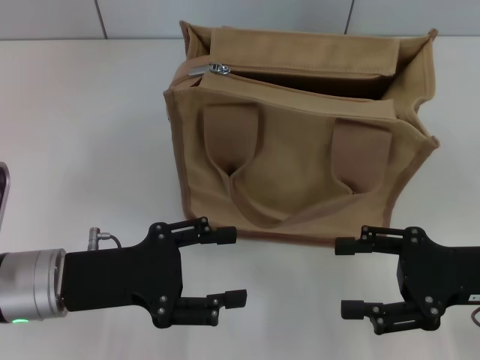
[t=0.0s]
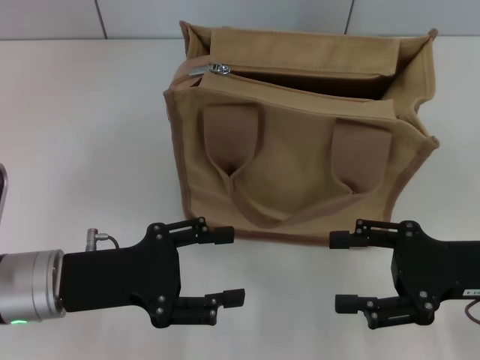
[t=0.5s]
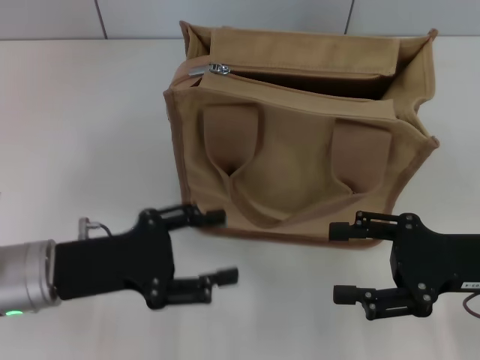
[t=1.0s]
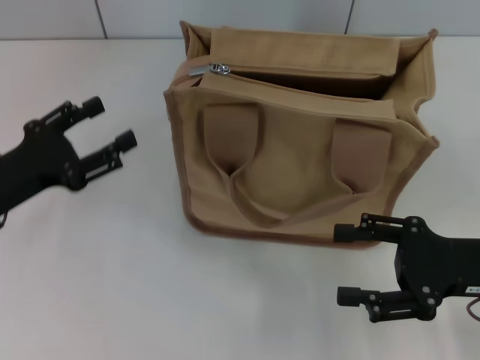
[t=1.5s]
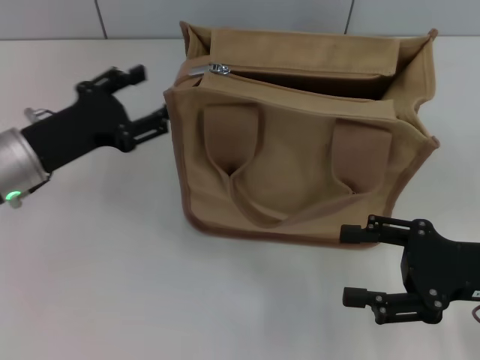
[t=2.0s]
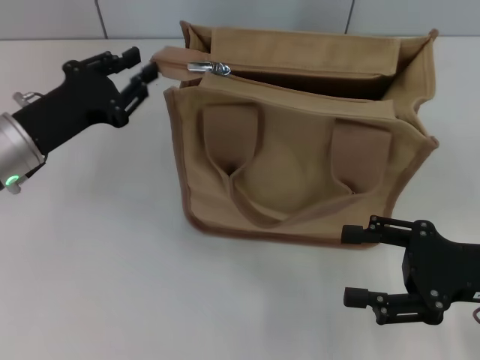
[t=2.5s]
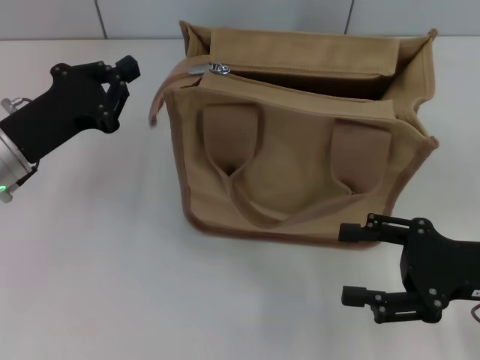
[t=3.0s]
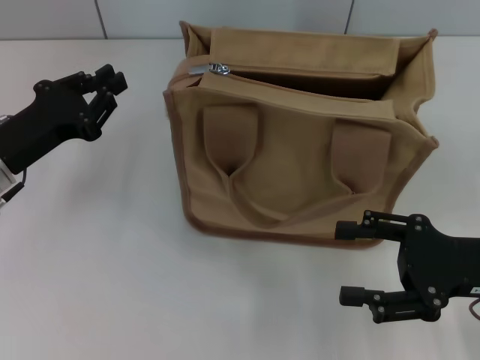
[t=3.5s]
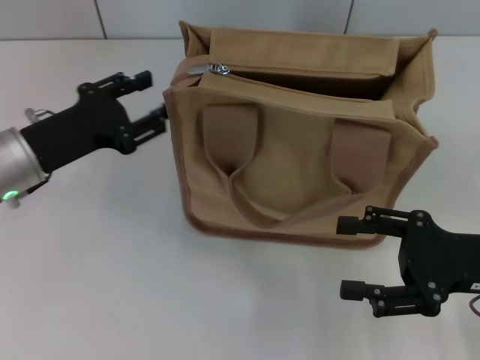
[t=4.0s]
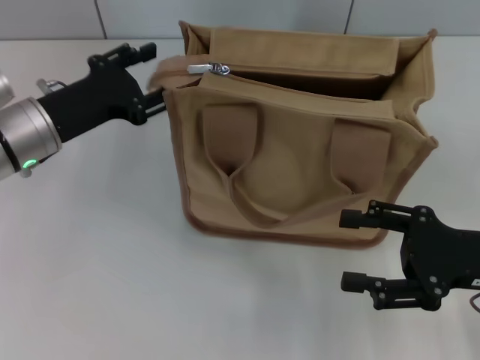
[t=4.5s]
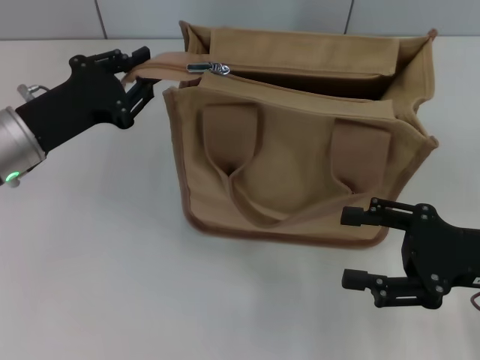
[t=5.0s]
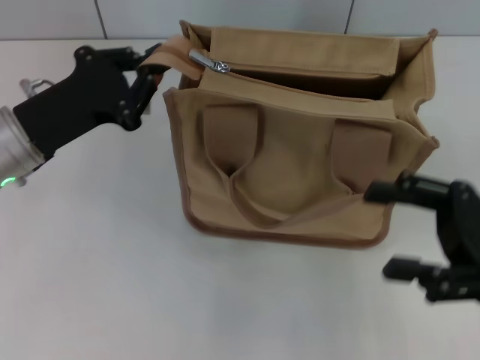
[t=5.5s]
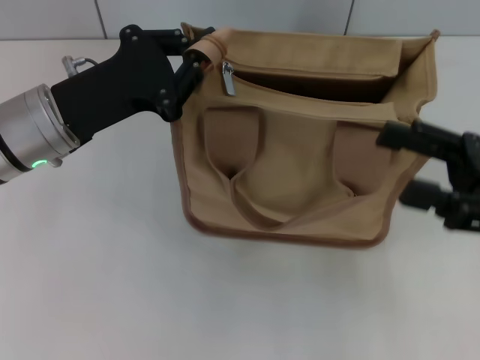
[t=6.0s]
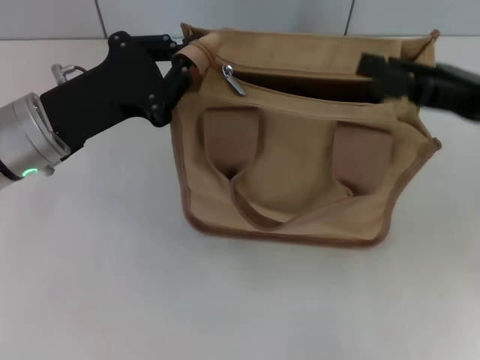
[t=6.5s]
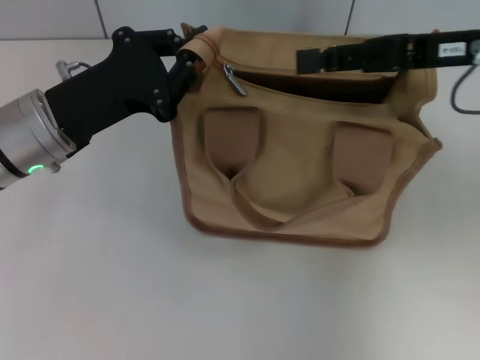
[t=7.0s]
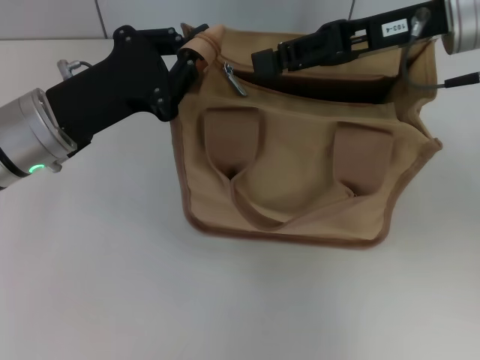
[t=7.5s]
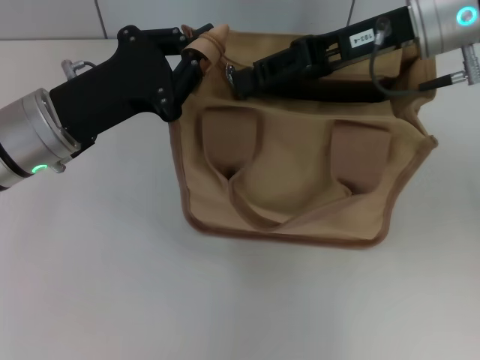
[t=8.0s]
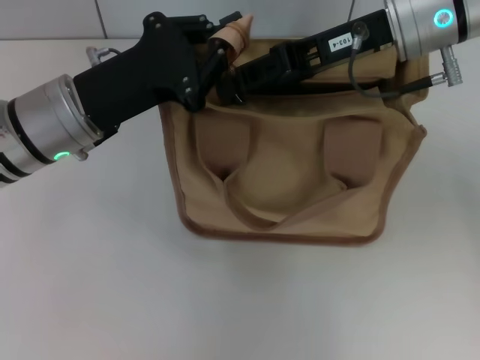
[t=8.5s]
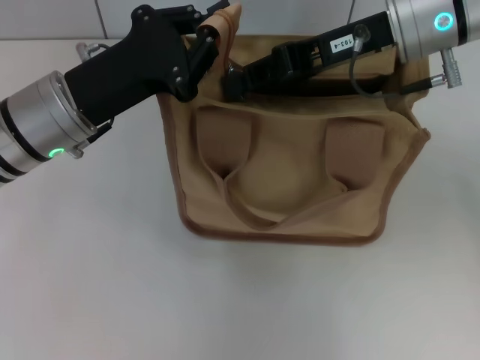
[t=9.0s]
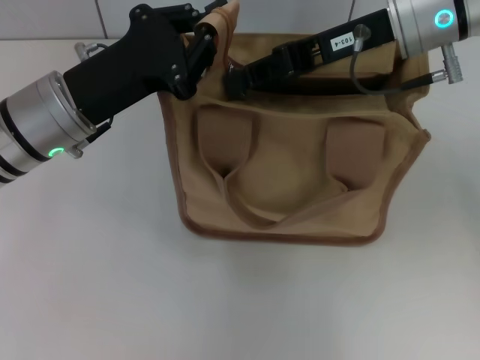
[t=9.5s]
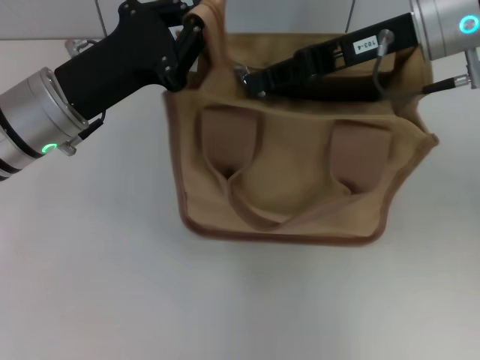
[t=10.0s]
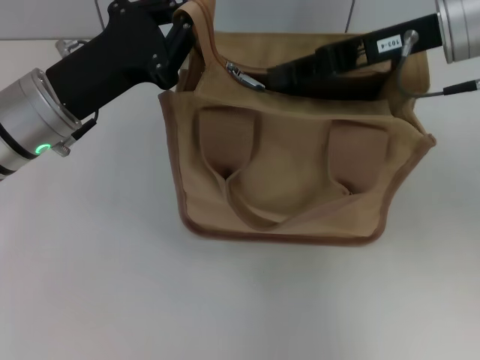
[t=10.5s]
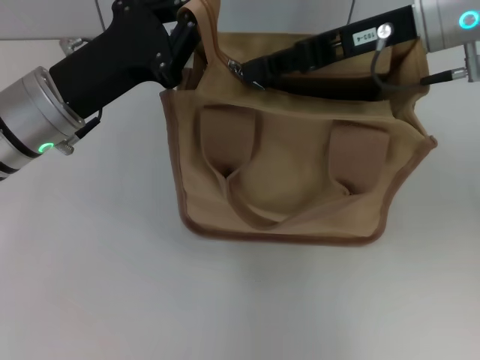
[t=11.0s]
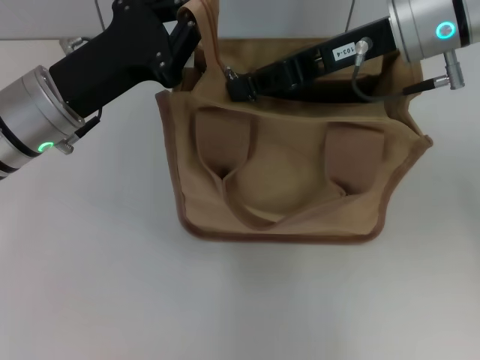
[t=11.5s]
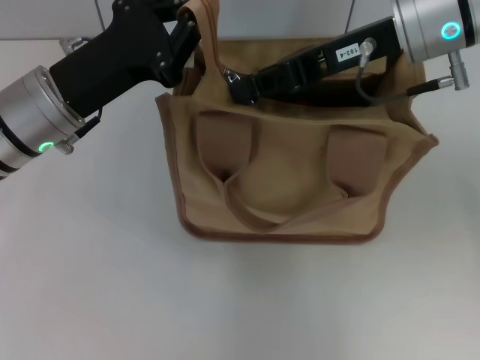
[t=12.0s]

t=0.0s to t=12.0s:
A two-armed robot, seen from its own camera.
t=0.0s to t=2.0s: The left gripper travels forward by some 10 cm.
t=2.0s to t=4.0s: The left gripper closes, then reopens.
t=4.0s to t=6.0s: The left gripper moves approximately 5 cm, and closes up. Meanwhile the right gripper shifts by approximately 5 cm.
t=6.0s to t=8.0s: The right gripper goes approximately 20 cm forward, to the left and upward, and closes up.
t=8.0s to t=12.0s: The grippers move only a little.

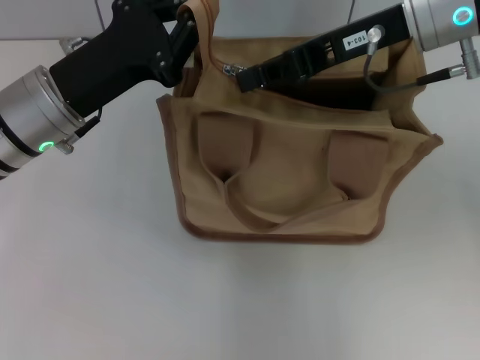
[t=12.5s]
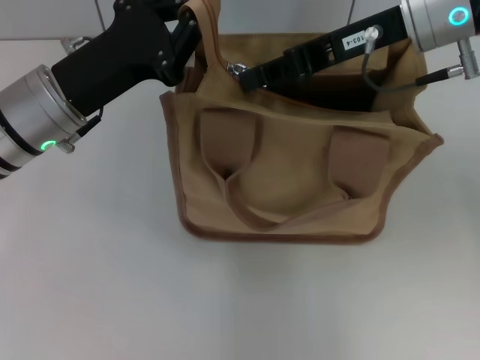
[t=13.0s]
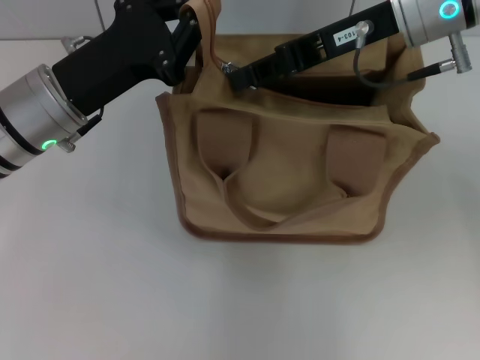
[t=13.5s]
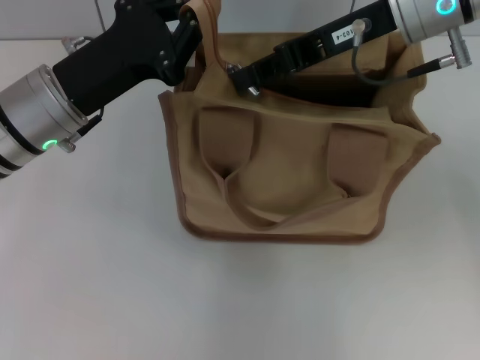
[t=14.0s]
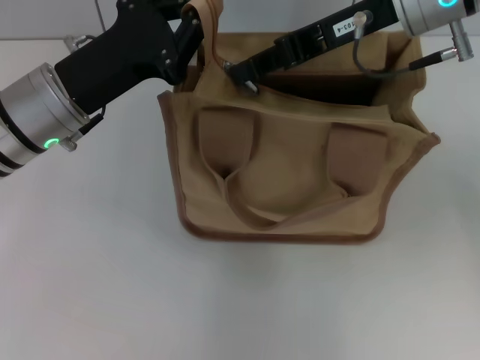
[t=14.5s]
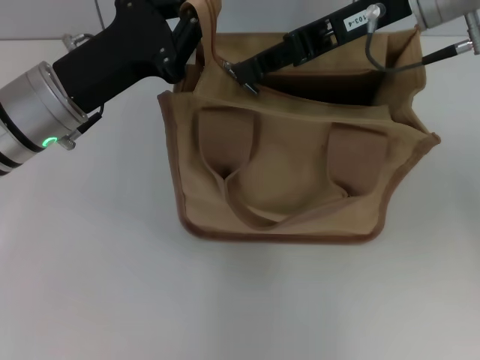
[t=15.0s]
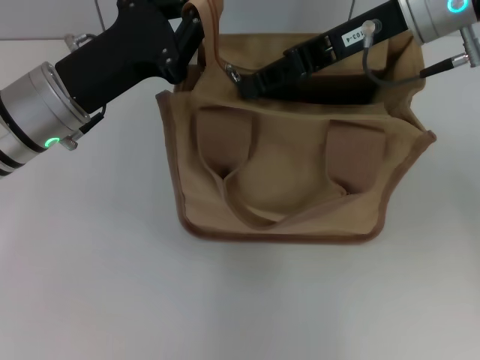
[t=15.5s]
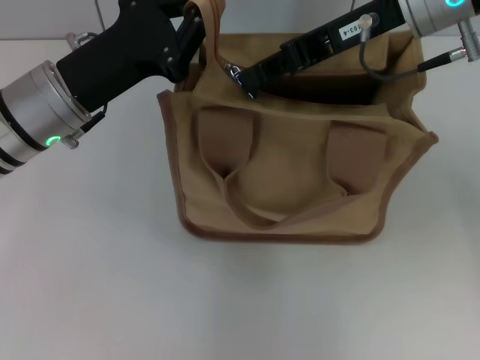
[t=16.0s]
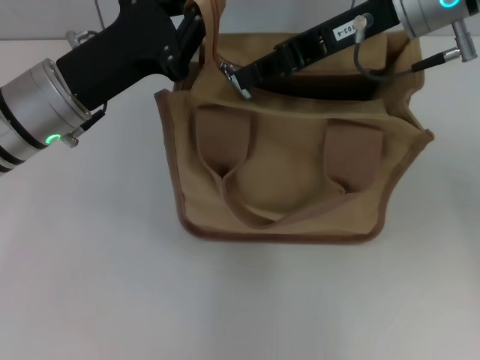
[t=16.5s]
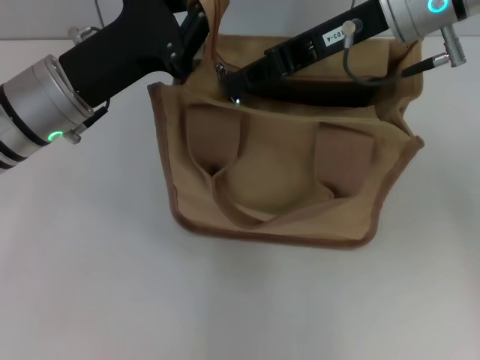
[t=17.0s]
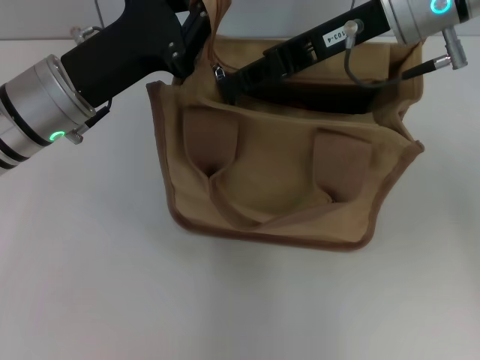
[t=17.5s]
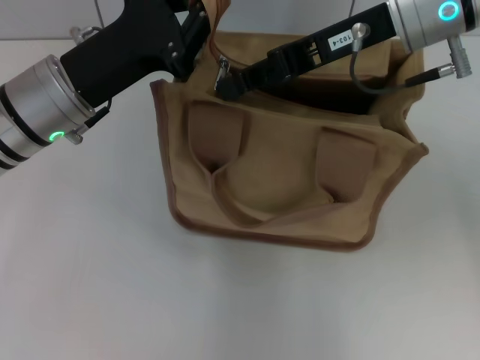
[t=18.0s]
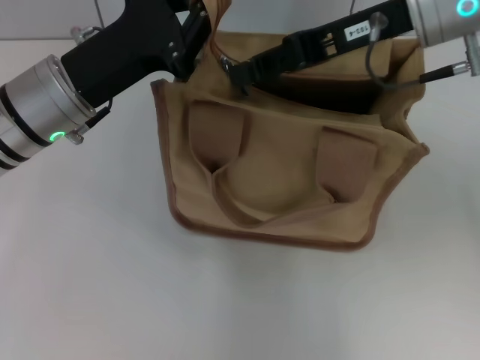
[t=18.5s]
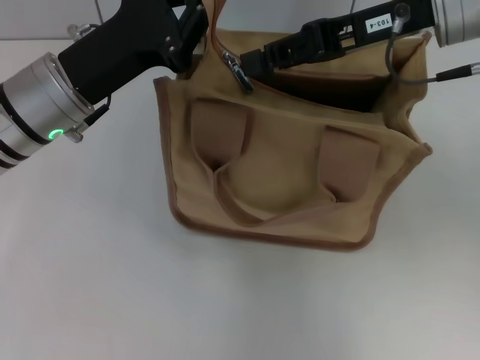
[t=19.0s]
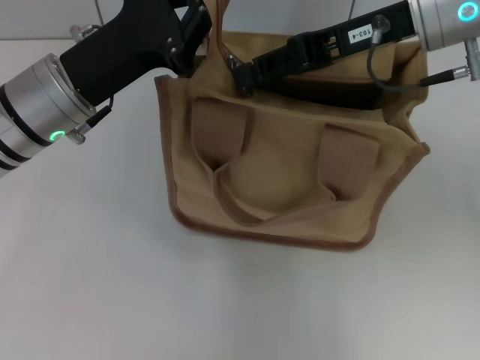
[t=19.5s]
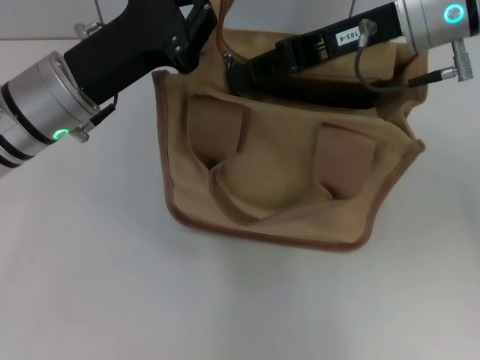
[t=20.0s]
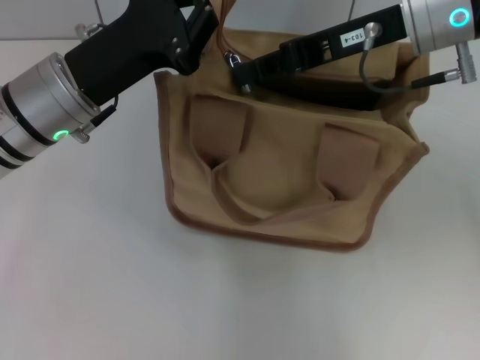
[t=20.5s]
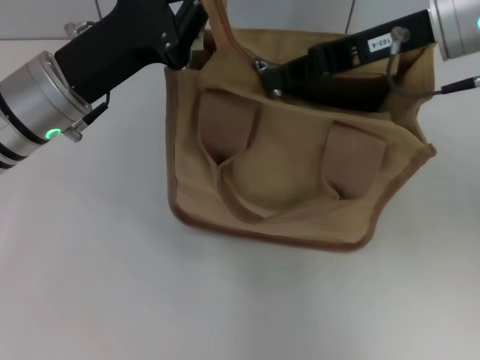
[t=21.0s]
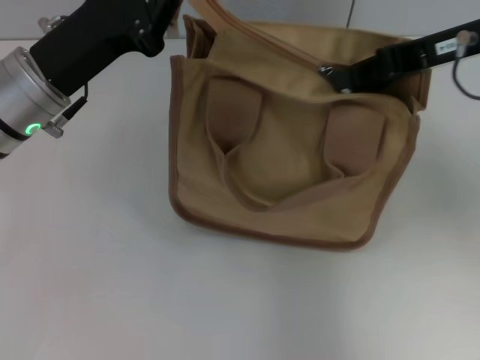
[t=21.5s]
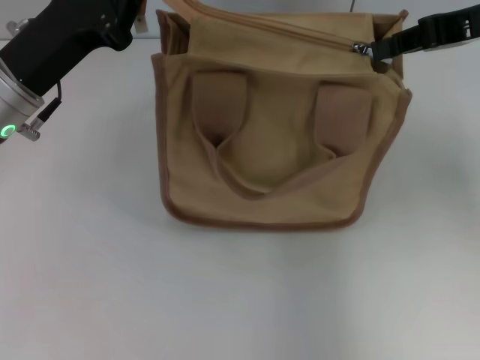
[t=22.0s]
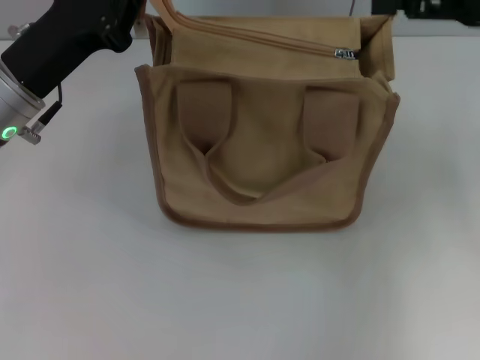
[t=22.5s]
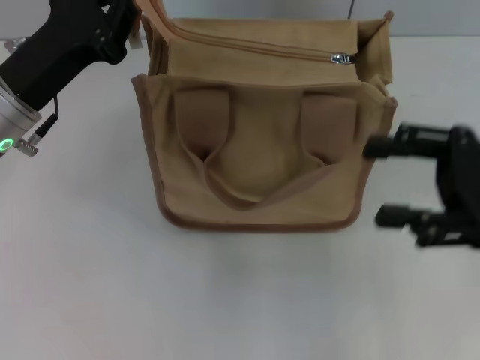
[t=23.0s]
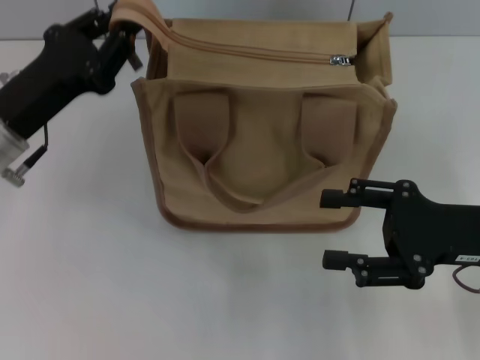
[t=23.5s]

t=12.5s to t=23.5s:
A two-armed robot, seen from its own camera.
Step, t=12.5s to t=22.0s: Pull up the zipper with your right hand.
t=12.5s to t=14.5s: The grippers move only a little.
t=14.5s to t=16.0s: The two grippers keep their place.
t=16.0s to t=20.0s: The grippers stay close to where they were, moving slightly.
t=20.0s to t=21.5s: The right gripper travels to the right by roughly 10 cm.
t=21.5s to t=23.5s: The right gripper is displaced downward and backward by roughly 20 cm, and opens its fingers, while the left gripper ends up roughly 5 cm from where it was.

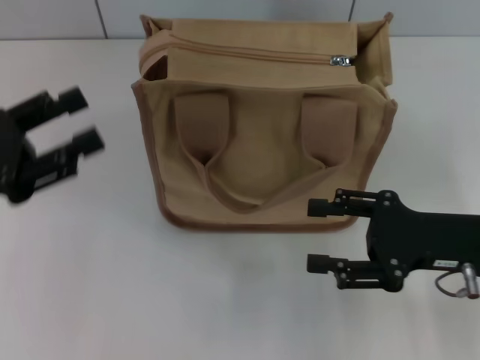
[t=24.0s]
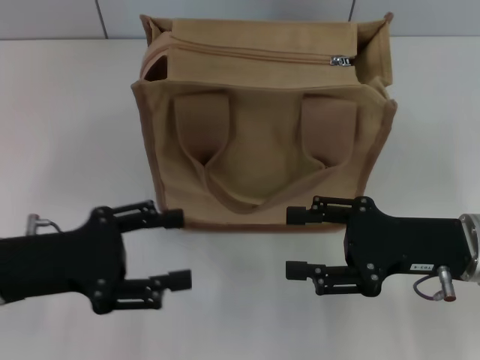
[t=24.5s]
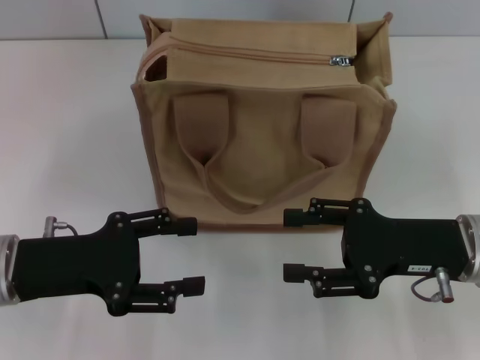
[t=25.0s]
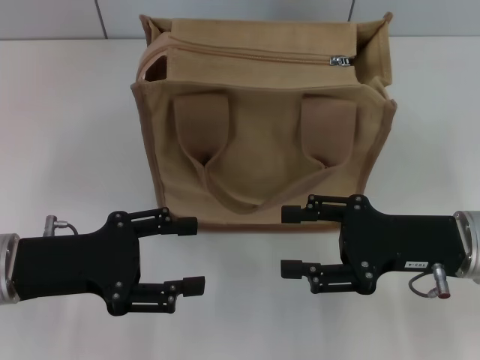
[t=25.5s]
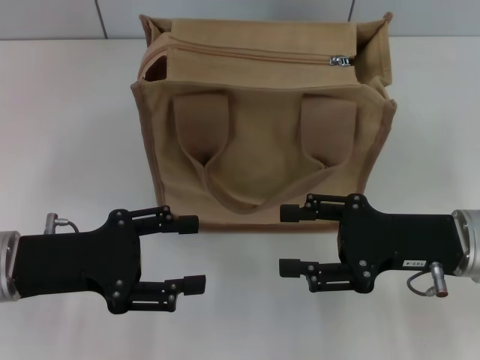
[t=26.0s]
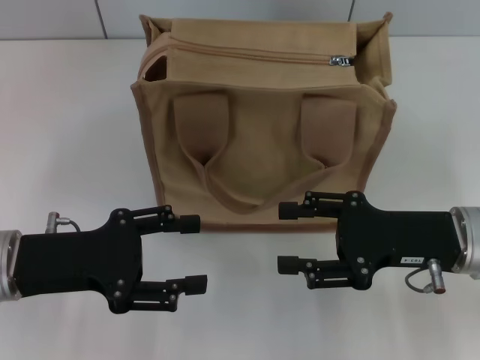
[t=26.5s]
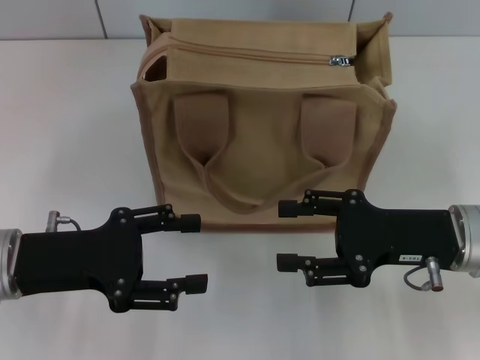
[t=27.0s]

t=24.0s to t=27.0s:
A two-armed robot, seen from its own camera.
t=24.0s to t=25.5s: The left gripper shifts roughly 5 cm to the right.
t=25.5s to t=27.0s: Both grippers stay put.
